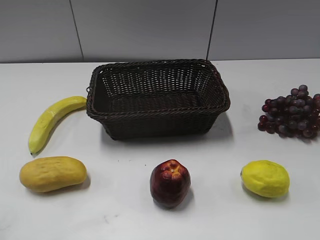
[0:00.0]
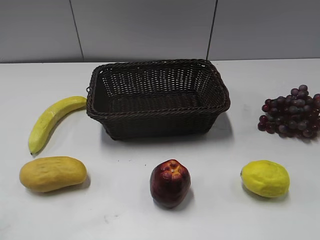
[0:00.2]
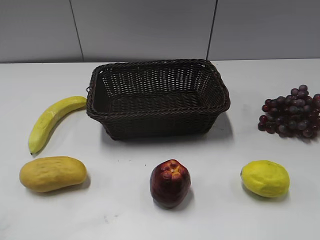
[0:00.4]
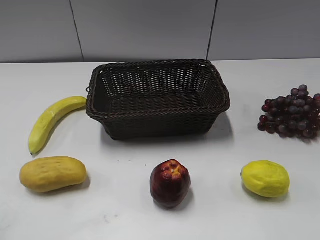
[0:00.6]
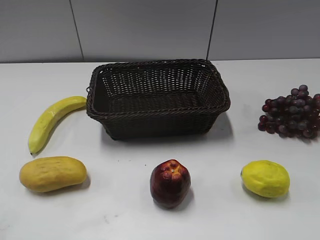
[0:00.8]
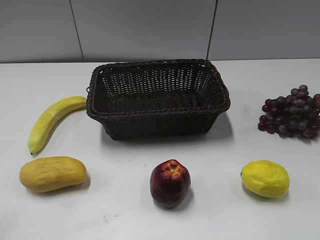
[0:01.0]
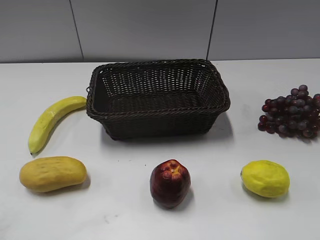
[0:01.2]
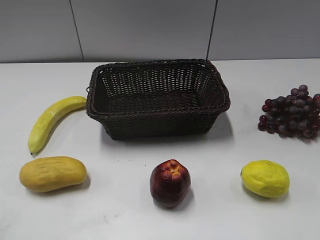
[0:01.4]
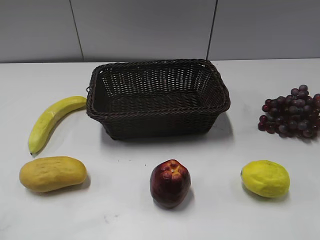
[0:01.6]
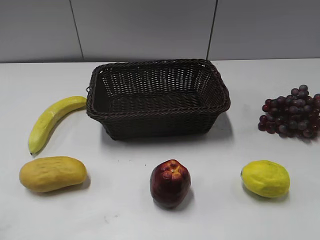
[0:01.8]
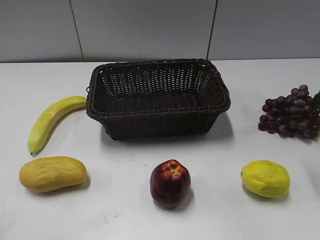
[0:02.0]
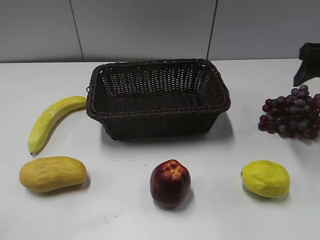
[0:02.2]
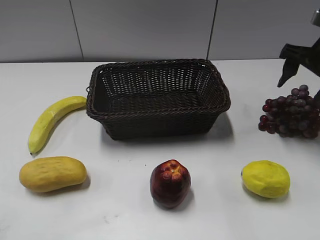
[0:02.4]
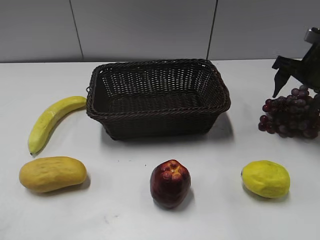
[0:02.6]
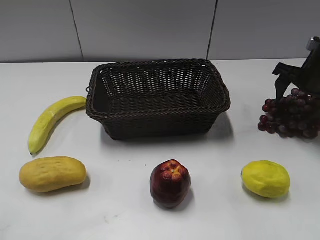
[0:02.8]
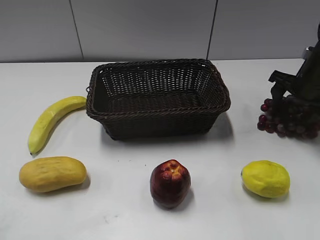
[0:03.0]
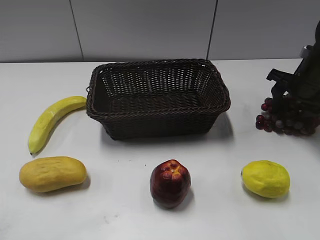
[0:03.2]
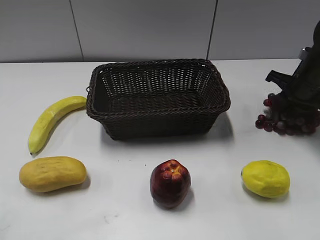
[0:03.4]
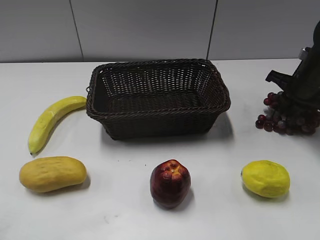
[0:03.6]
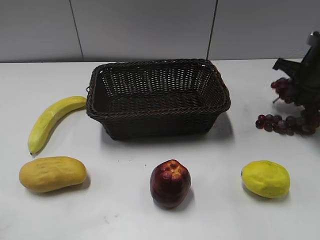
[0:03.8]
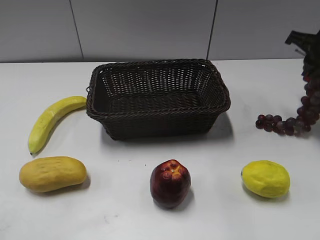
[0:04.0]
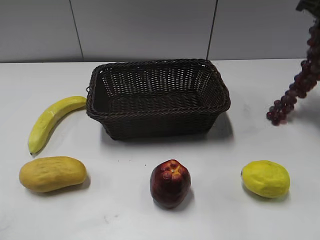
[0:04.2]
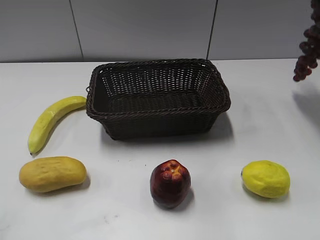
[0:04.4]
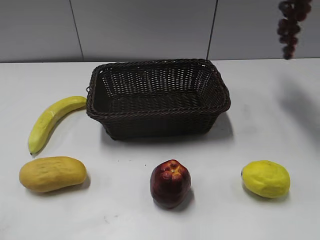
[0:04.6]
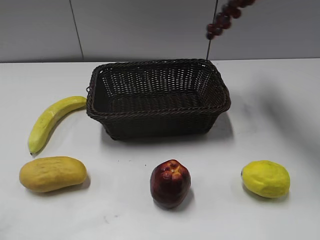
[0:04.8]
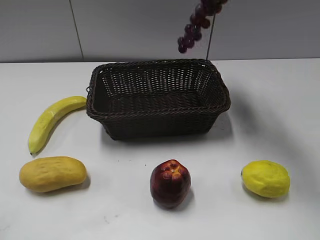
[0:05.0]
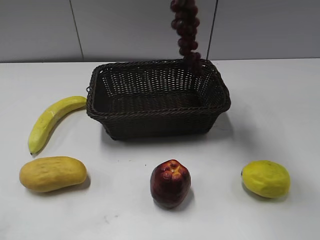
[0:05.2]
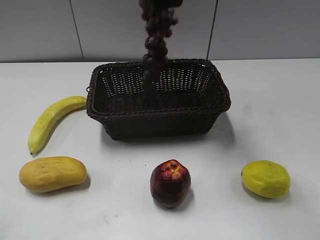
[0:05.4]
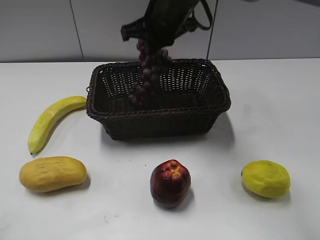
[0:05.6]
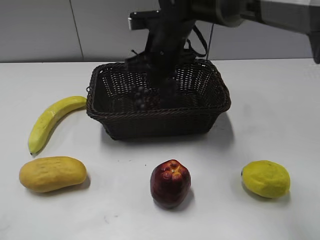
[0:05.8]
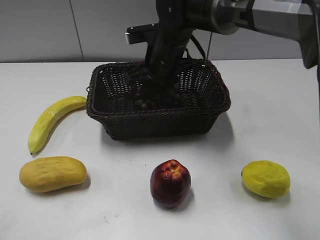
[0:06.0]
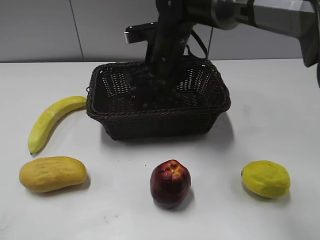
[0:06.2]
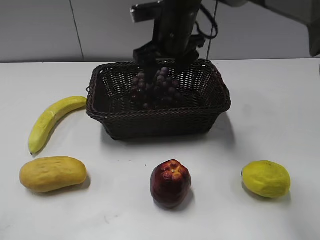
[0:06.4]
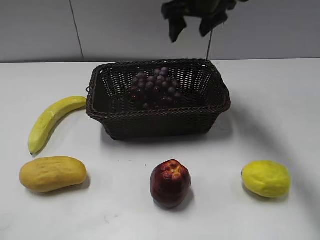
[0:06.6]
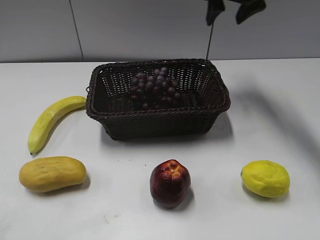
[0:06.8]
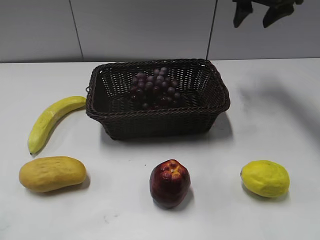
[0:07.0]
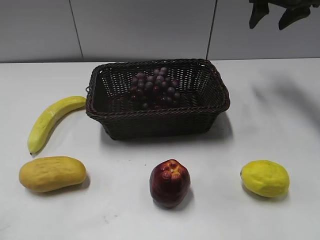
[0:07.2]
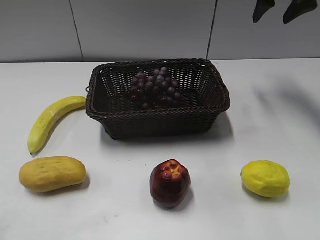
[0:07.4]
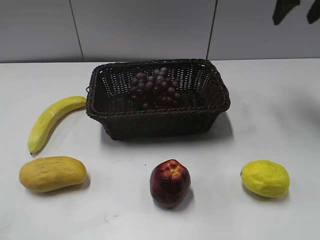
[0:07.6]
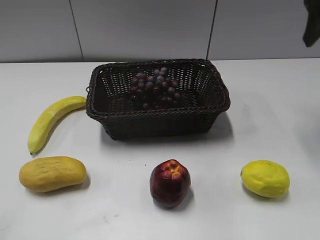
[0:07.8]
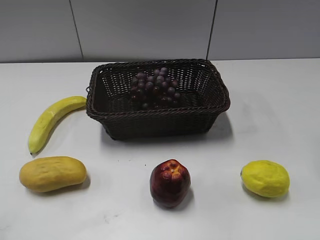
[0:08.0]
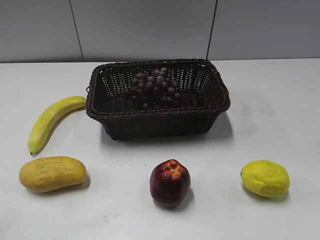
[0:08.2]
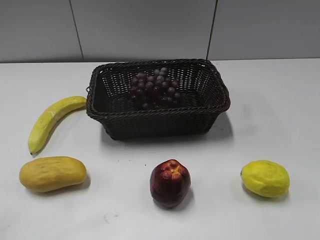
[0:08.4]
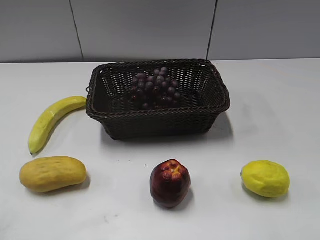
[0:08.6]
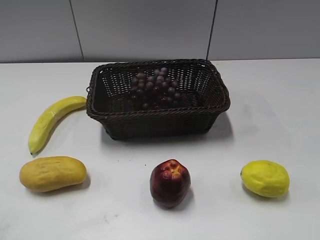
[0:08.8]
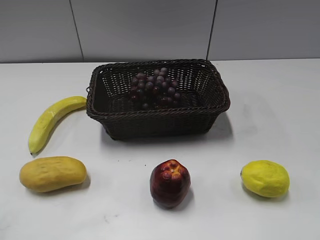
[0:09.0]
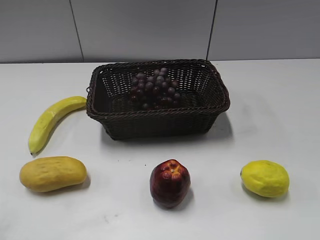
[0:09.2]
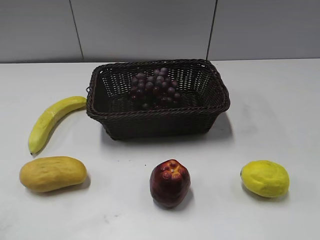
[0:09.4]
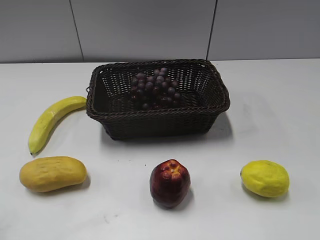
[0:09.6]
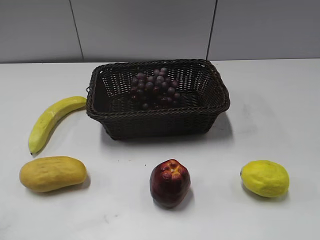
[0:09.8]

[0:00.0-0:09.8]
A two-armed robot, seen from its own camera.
Step, 0:02.0 to 0:03.4: Grasp the grape with right gripper.
Step, 0:03.8 to 0:06.0: Place the grape in the basket with right gripper.
0:01.4 to 0:02.8: The right gripper shifts some 35 cm forward.
0:02.8 to 0:04.2: The right gripper is displaced upward by approximately 15 cm, and closes its fingers.
0:04.2 to 0:05.6: The right gripper shifts some 30 cm to the left.
0:05.6 to 0:07.0: The right gripper heads to the right and forward, covering roughly 25 cm, and opens its fingers.
0:07.0 to 0:08.4: The right gripper goes some 35 cm backward.
